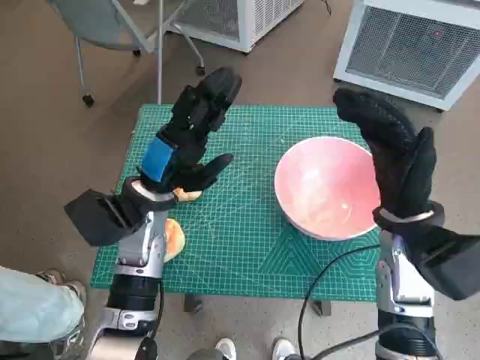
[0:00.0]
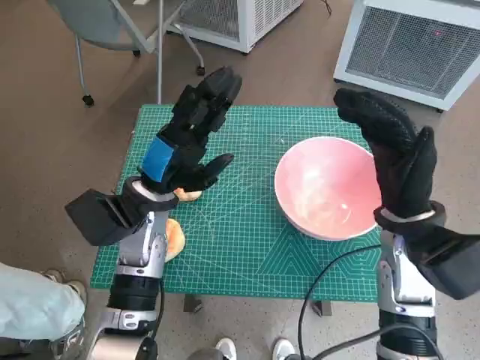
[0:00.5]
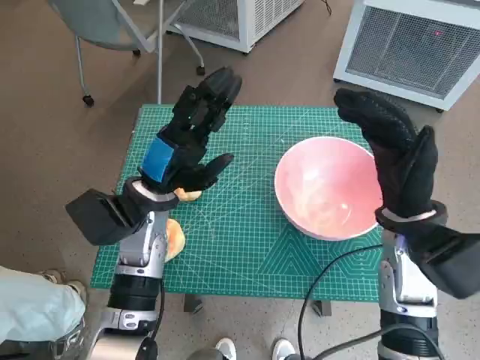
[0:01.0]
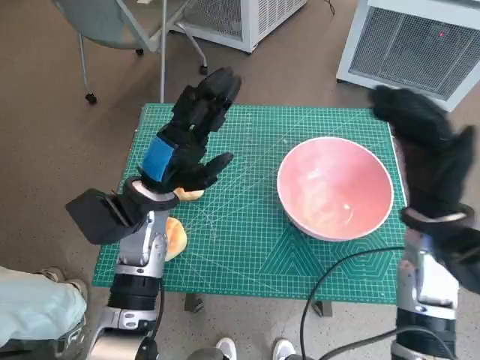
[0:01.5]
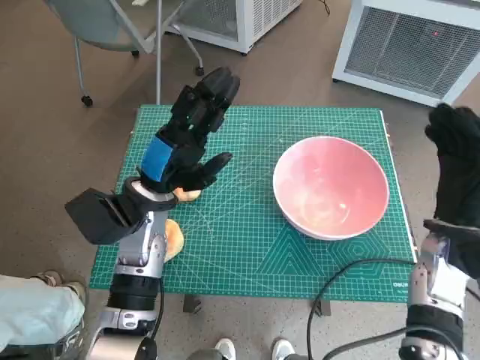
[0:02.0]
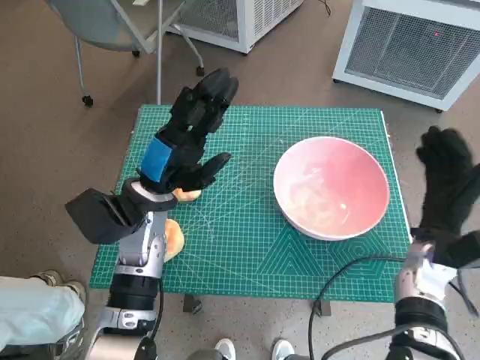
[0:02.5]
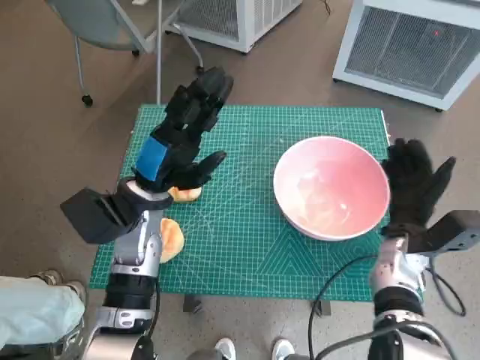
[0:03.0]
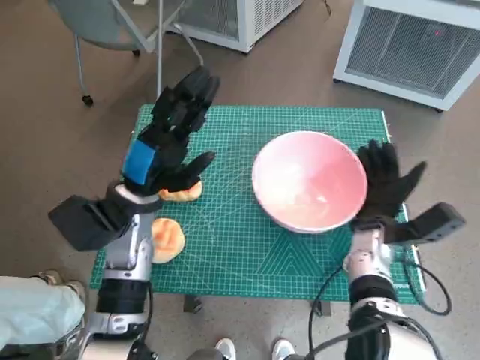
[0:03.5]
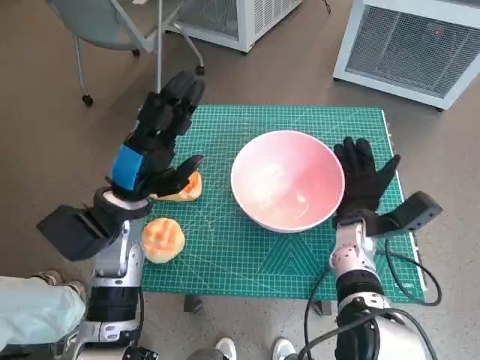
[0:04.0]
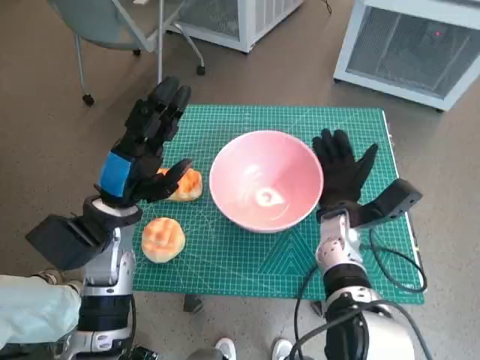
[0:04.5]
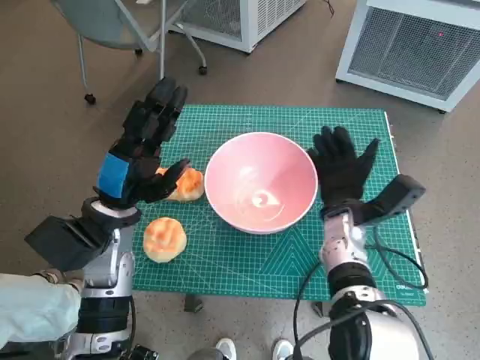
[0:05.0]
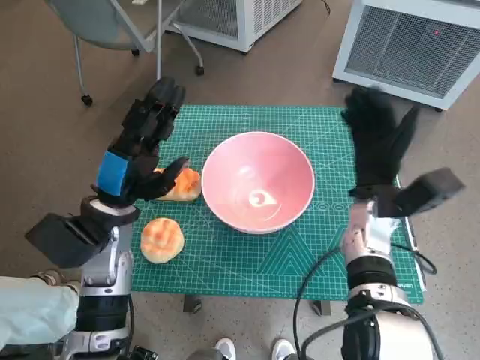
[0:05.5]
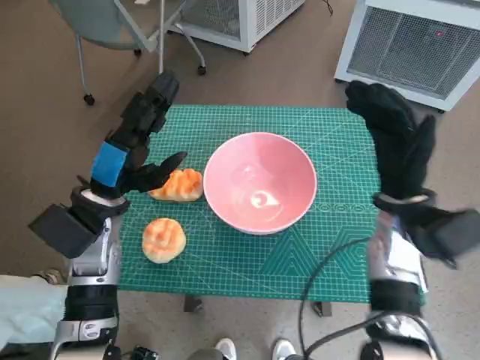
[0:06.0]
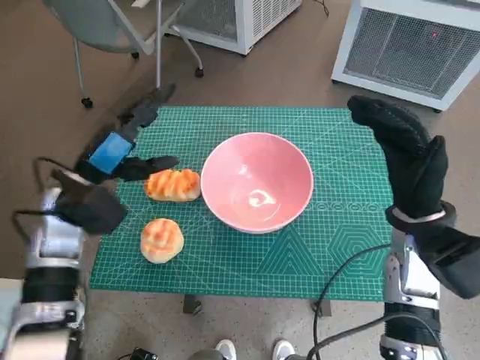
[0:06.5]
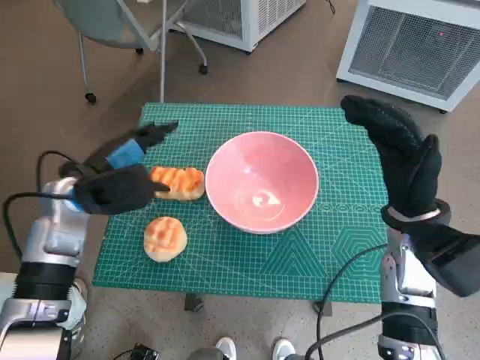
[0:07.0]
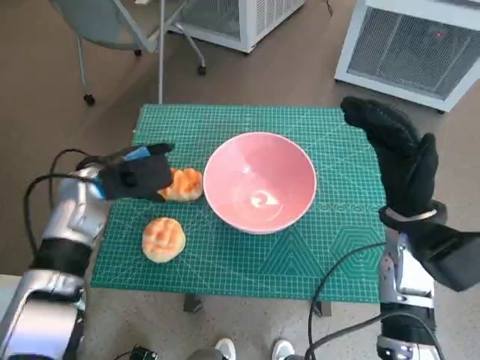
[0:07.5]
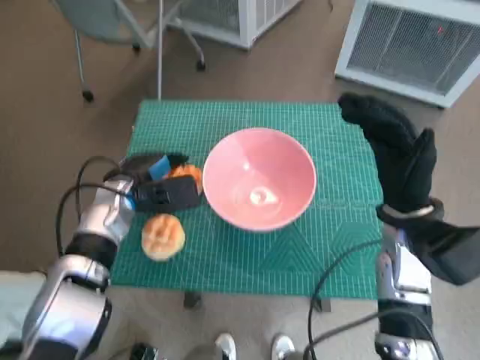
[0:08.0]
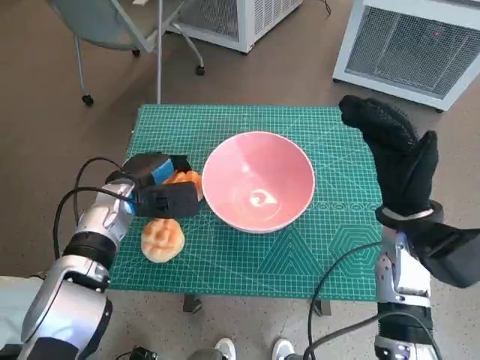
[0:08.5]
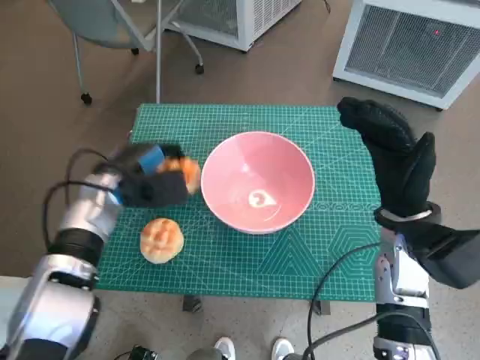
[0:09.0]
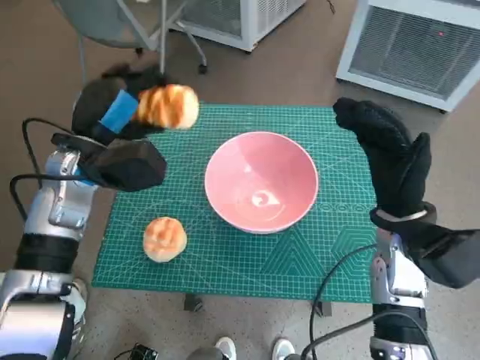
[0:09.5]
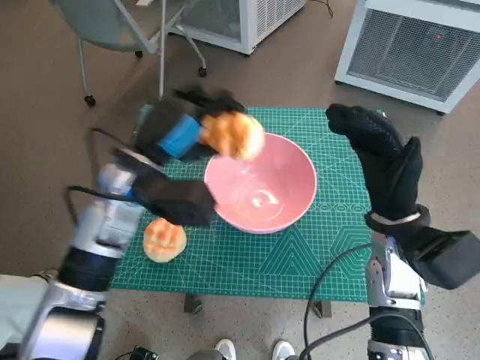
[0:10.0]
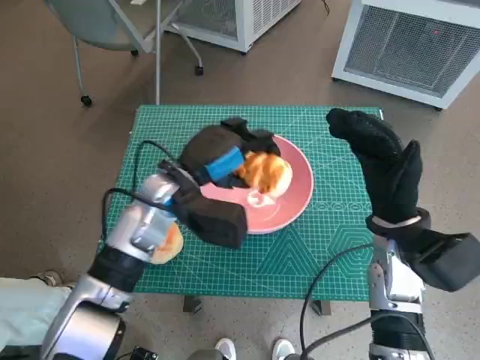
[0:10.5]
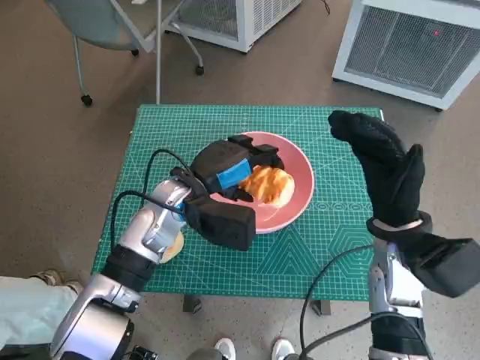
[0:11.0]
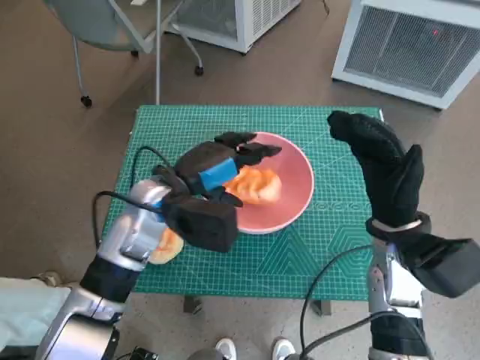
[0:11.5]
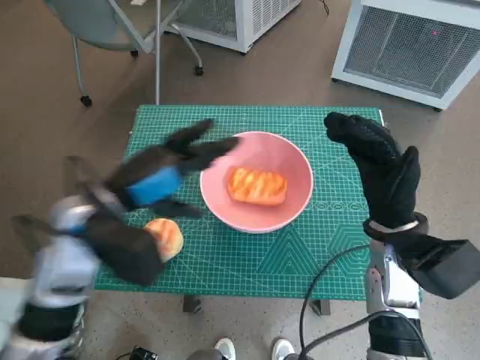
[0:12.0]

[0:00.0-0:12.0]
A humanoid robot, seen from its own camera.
Task of the whole recording: Push the bowl into the center of the table and put the bread into the bowl.
Step, 0:00.0 to 0:05.0: Move the pink bowl to the center of table with right hand.
Step, 0:05.5 to 0:08.0: Grasp the long bread with left hand.
Step, 0:08.5 to 0:11.0: Place the long bread in pink bowl with left hand.
0:02.0 to 0:04.0: The right hand heads to the left and downward, covering about 10 cm.
0:04.0 to 0:06.0: The right hand goes some 10 cm upward.
0:06.0 to 0:08.0: The left hand goes some 5 cm forward and downward.
0:08.0 to 0:10.0: The left hand moves upward, some 10 cm.
0:10.0 to 0:12.0: The left hand travels backward by some 5 cm.

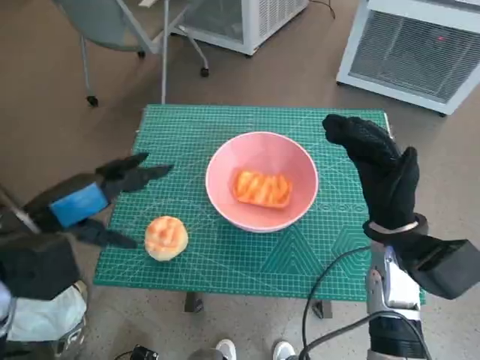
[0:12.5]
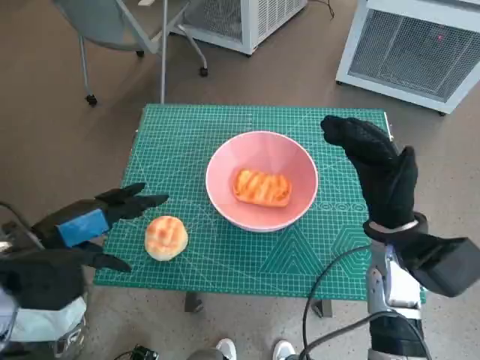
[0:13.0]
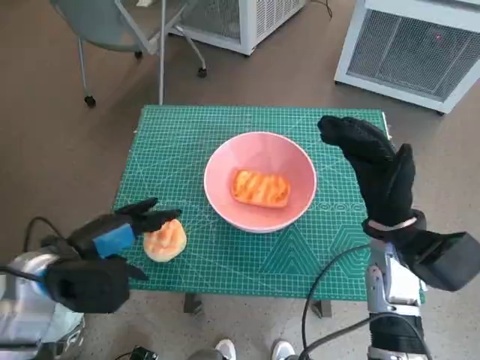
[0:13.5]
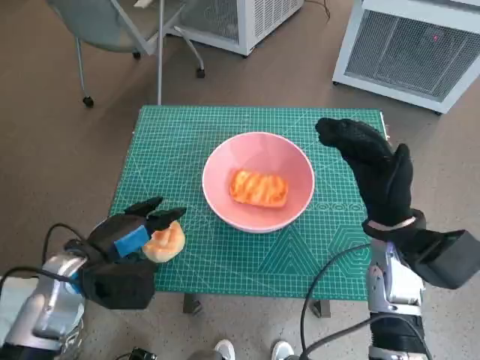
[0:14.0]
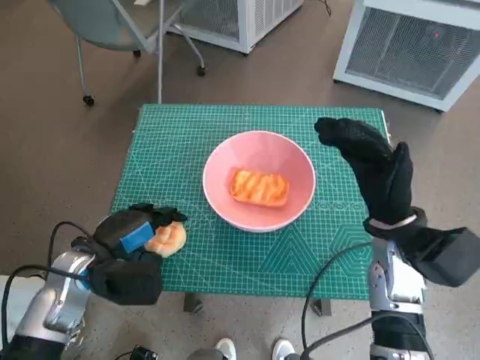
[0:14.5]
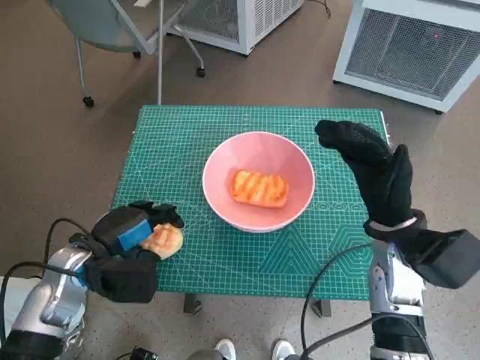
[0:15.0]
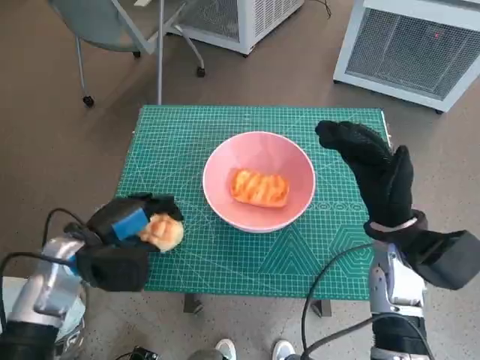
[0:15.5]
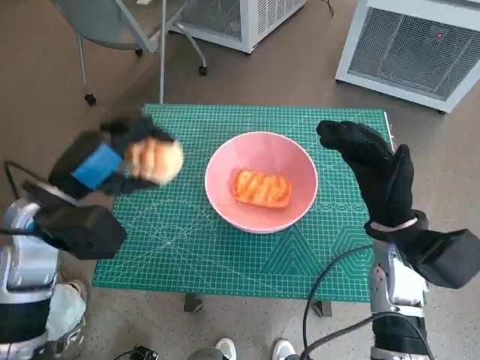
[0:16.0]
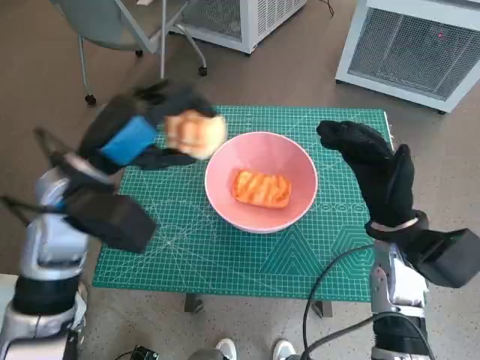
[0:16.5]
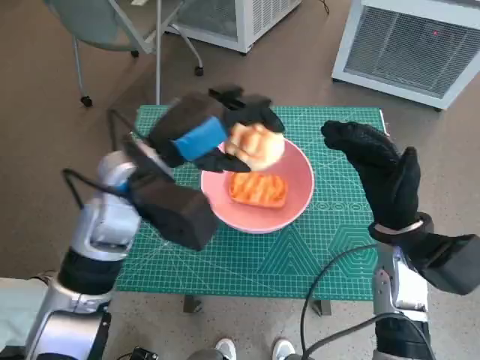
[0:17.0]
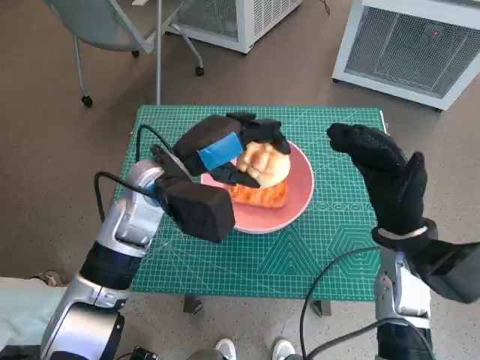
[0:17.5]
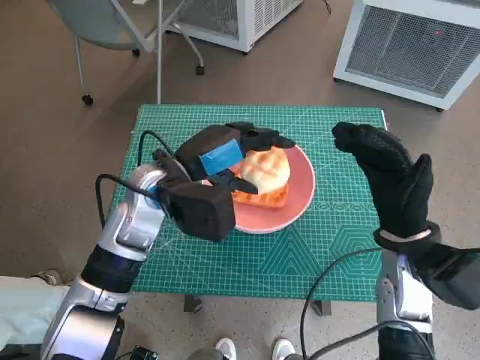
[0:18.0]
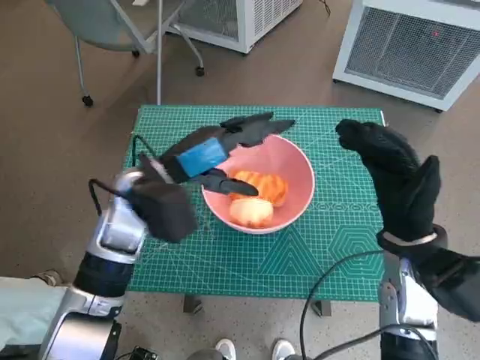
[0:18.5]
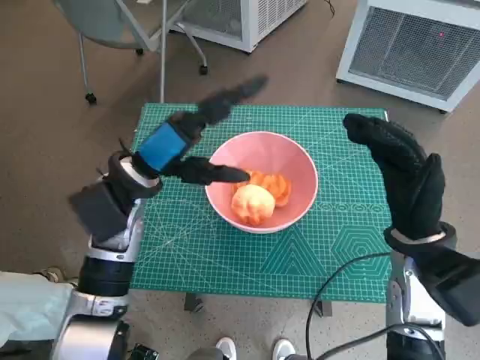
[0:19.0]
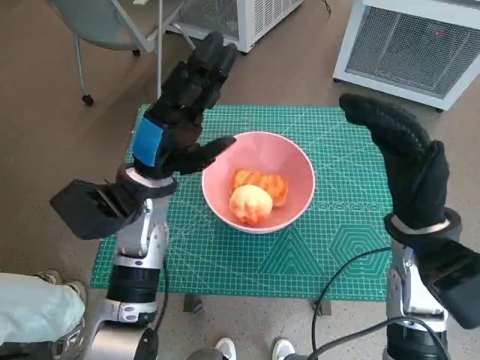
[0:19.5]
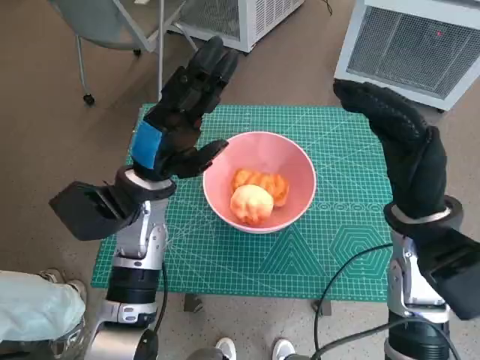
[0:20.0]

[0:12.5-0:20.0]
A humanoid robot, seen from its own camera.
Task of the whole recording: Push the bowl into the center of the table and put the bread into the bowl.
Step, 0:12.5 to 0:14.5: Grasp the round bread with left hand.
Step, 0:15.0 to 0:18.0: Place the round bread in pink bowl with left hand.
0:12.5 to 0:14.5: The left hand moves downward, about 10 cm.
0:14.5 to 0:16.5: The left hand goes approximately 15 cm upward.
0:16.5 to 0:18.0: The left hand moves to the right, some 5 cm.
0:18.0 to 0:20.0: The right hand heads upward, covering some 5 cm.

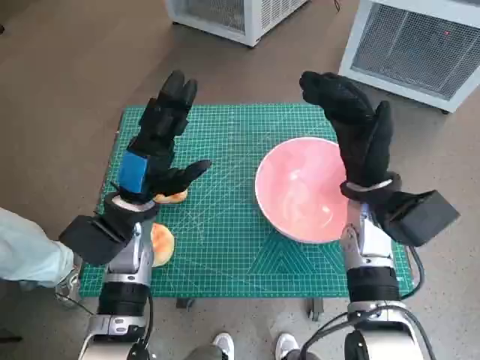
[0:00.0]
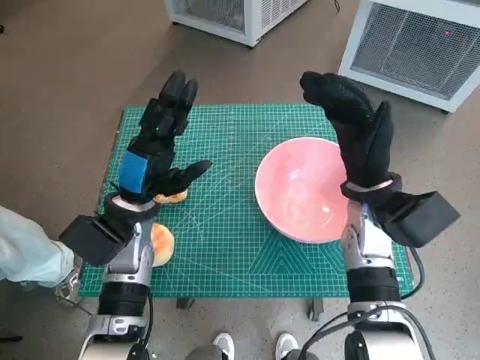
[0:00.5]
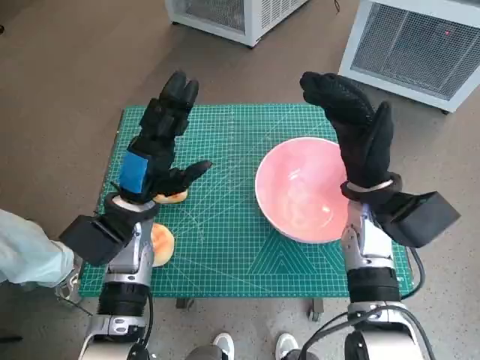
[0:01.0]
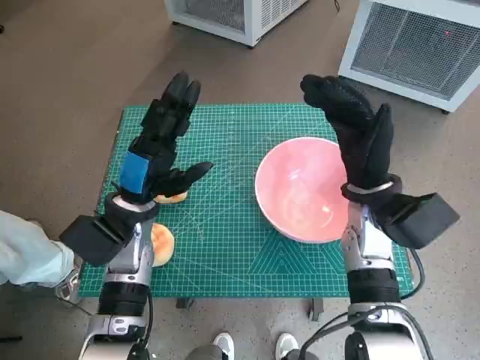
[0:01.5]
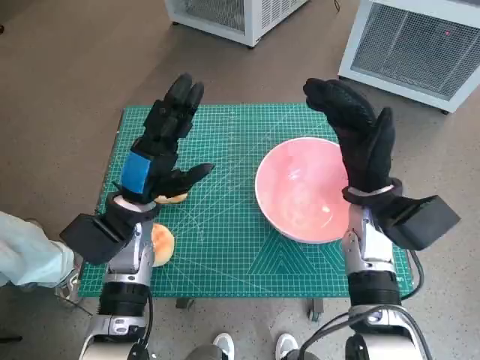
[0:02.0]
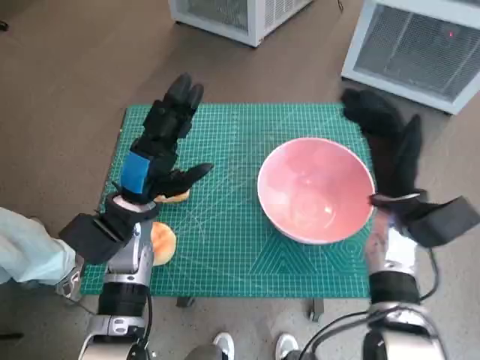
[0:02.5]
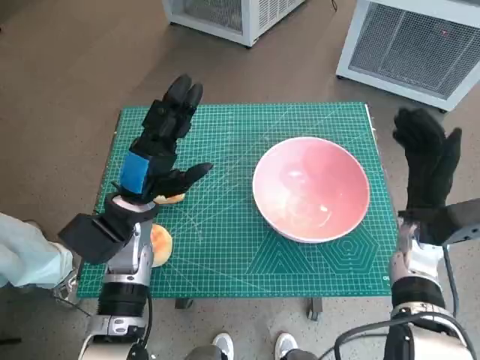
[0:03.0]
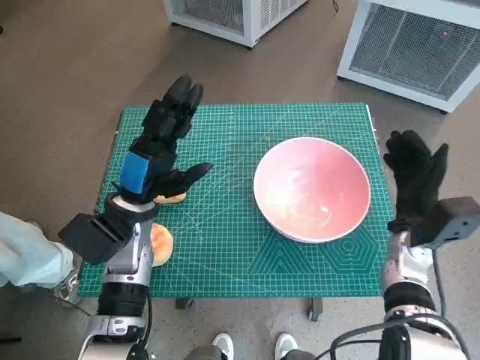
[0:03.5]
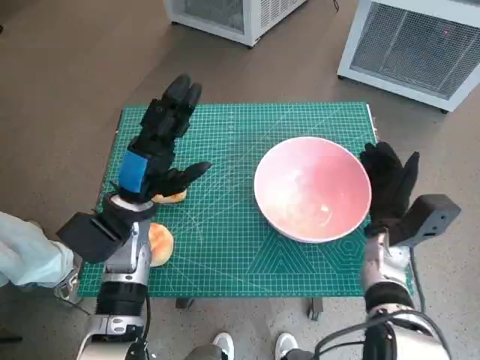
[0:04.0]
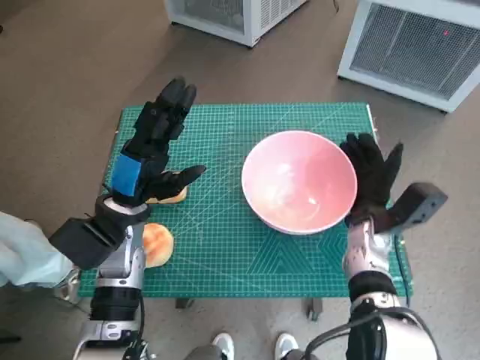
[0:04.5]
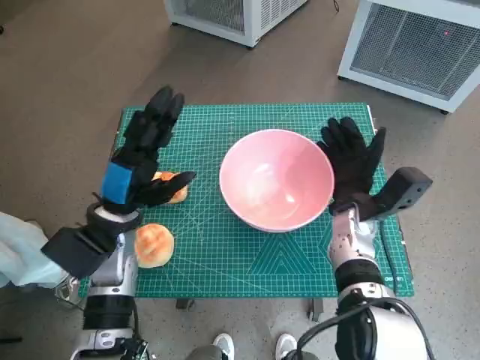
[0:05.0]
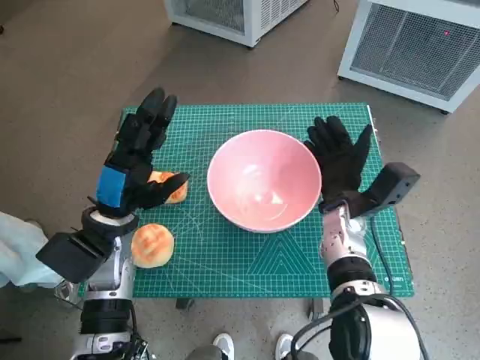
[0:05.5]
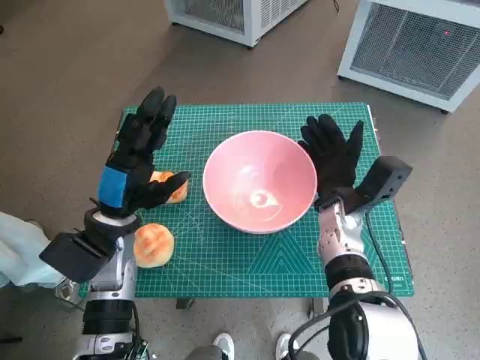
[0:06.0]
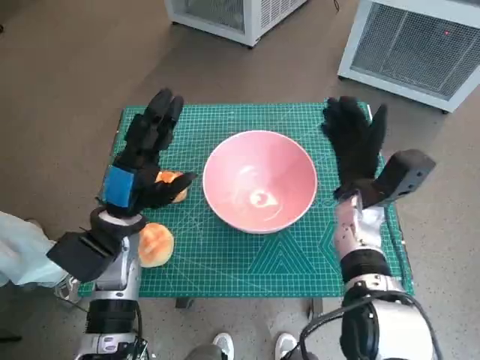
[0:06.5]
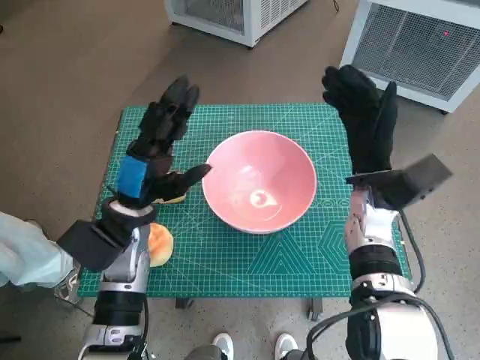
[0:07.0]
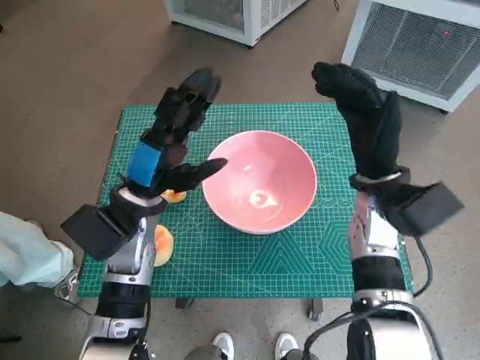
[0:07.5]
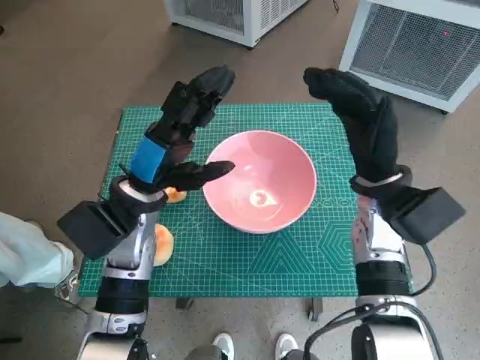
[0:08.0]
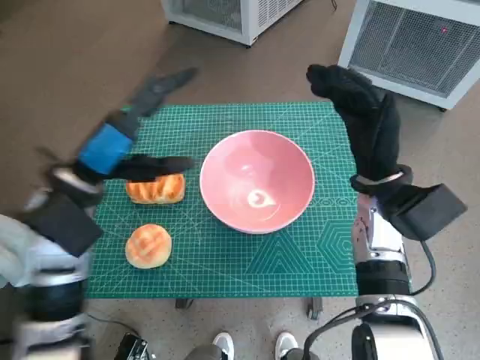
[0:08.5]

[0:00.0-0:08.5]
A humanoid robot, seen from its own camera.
Task of the whole recording: Push the bowl into the center of the table and put the bread into the bowl.
Step, 0:00.0 to 0:06.0: Move the pink bowl to the center of table with right hand.
0:02.0 to 0:04.0: The right hand shifts roughly 10 cm downward.
0:04.0 to 0:06.5: The right hand heads to the left, covering about 5 cm.
0:06.5 to 0:08.5: The two hands go roughly 10 cm upward.
